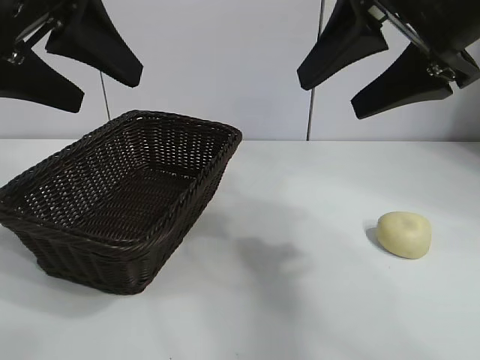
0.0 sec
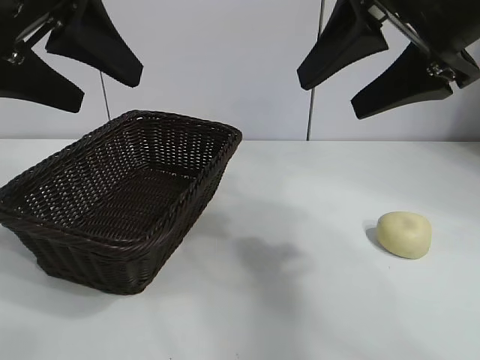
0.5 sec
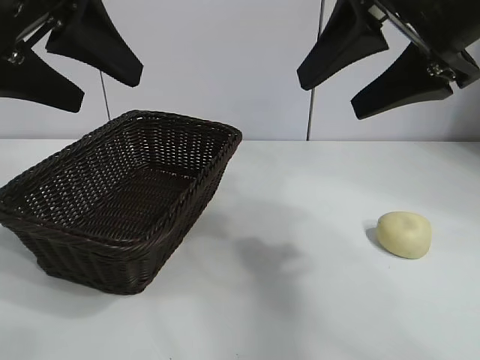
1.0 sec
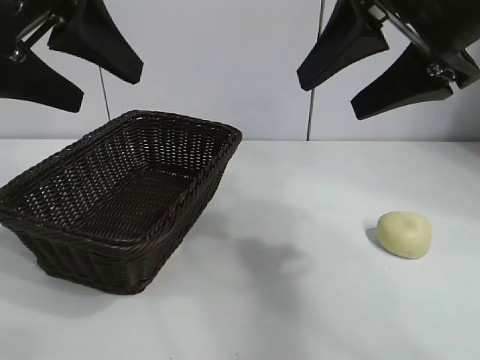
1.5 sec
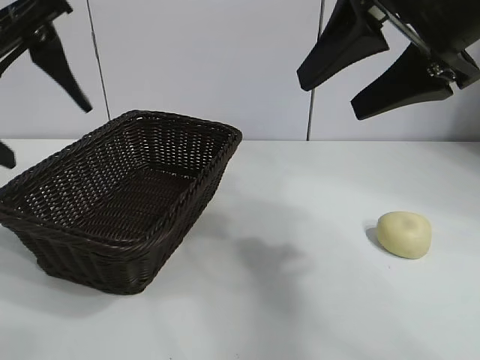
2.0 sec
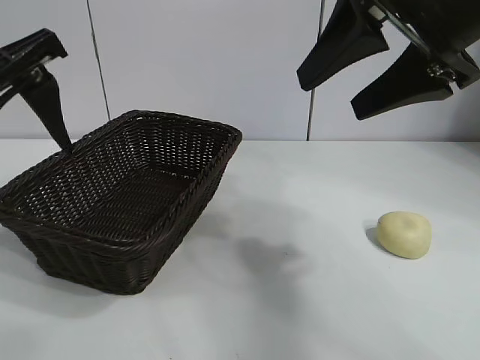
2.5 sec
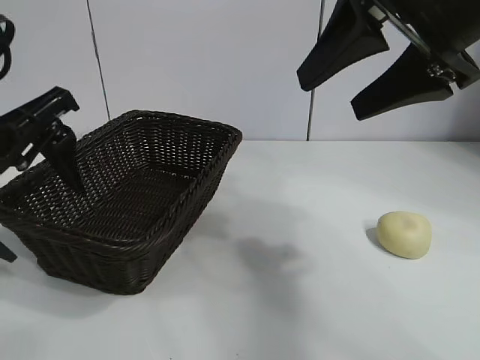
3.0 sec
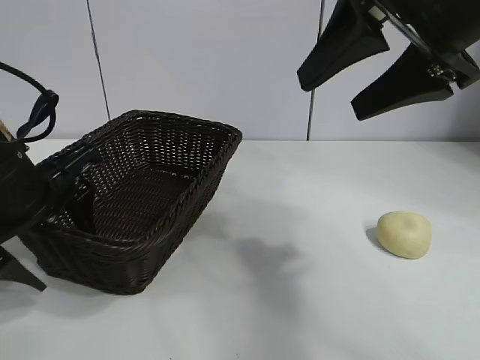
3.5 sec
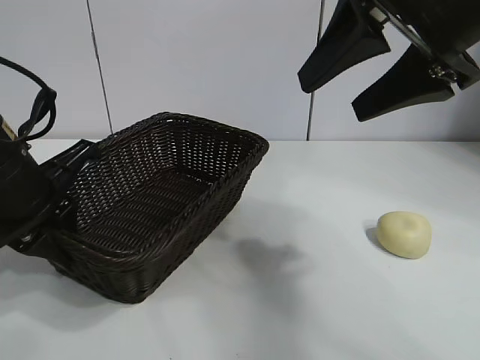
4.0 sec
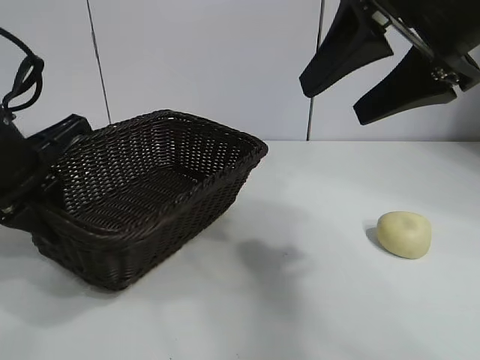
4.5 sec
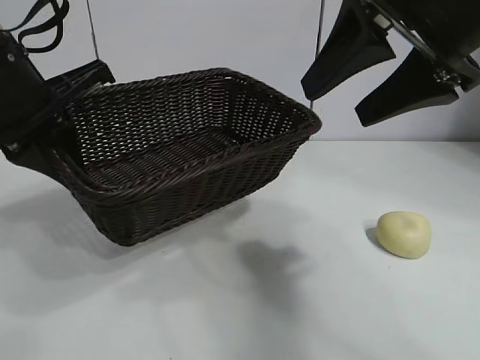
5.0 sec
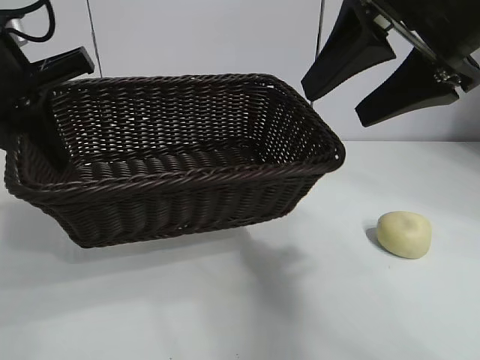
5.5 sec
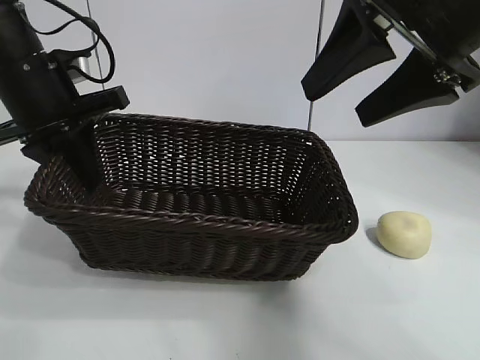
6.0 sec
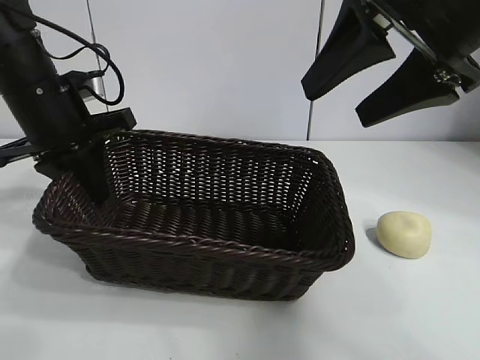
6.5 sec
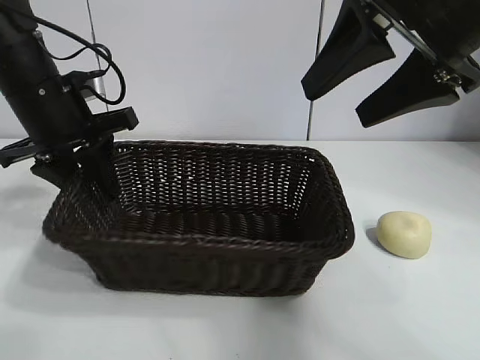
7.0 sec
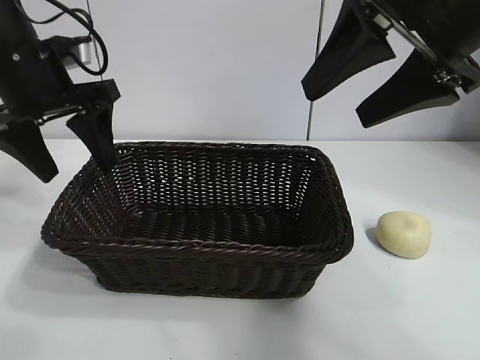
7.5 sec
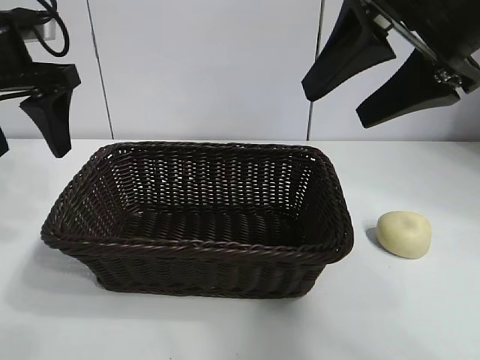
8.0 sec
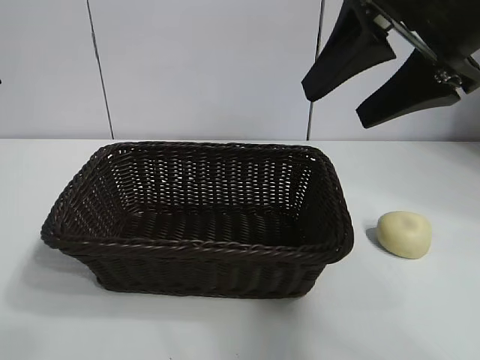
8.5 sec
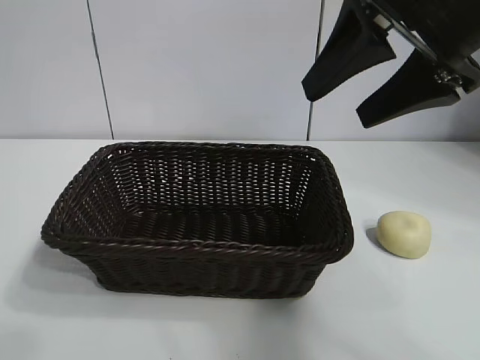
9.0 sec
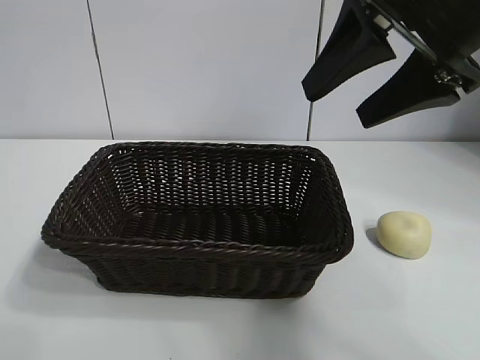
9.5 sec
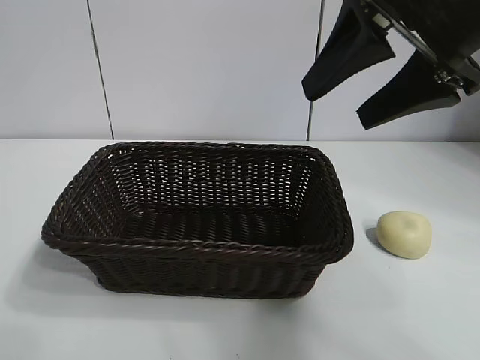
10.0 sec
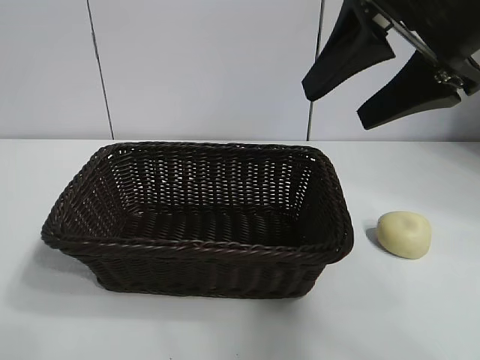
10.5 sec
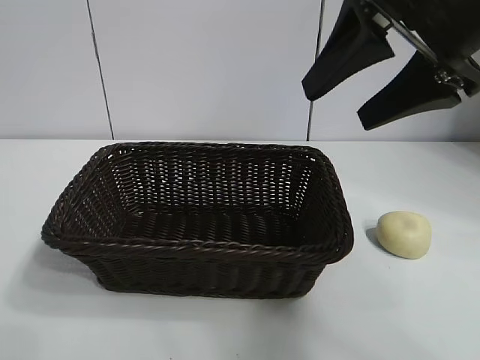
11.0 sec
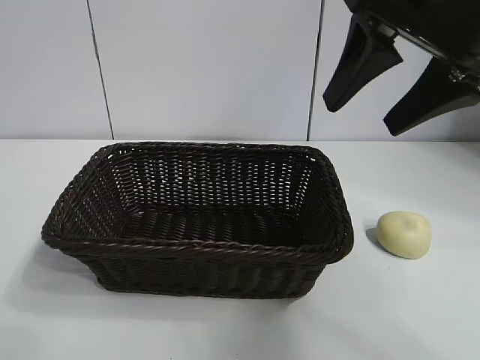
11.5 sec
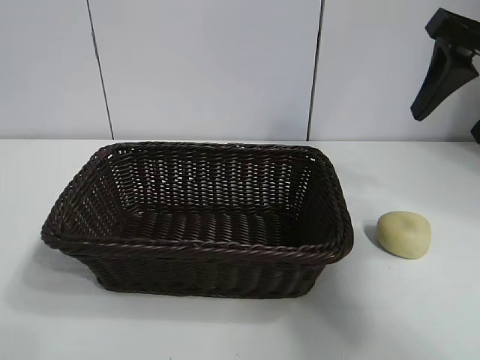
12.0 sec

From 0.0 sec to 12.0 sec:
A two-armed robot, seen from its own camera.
Task of the whole recording: pick up the egg yolk pastry and put it into the basket.
Step, from 2.0 sec to 3.5 sec: Grasp the basket with left gripper.
Step, from 4.0 sec to 7.0 sec: Place the basket in the center of view with left gripper.

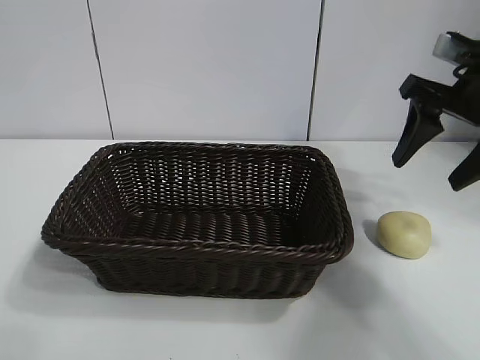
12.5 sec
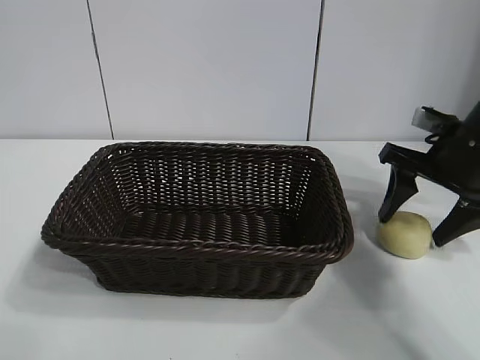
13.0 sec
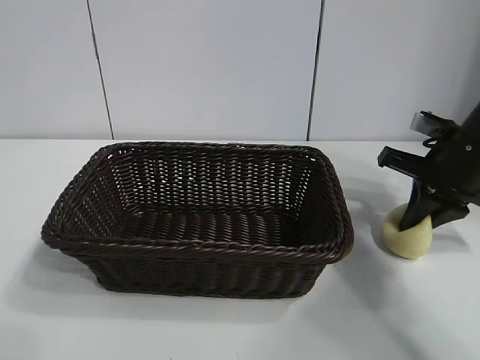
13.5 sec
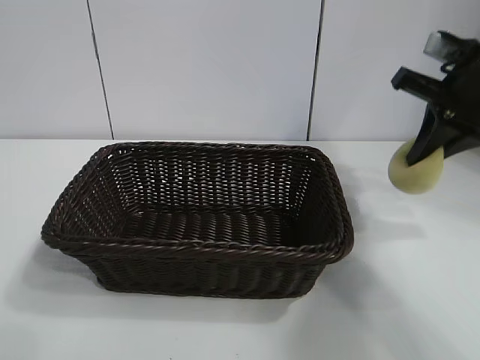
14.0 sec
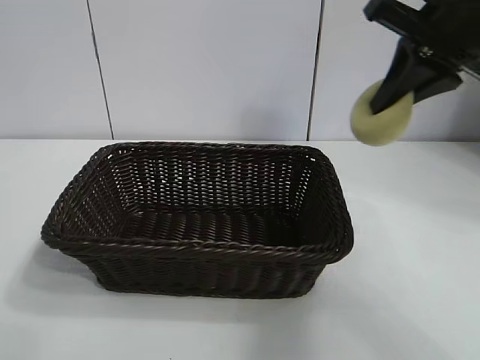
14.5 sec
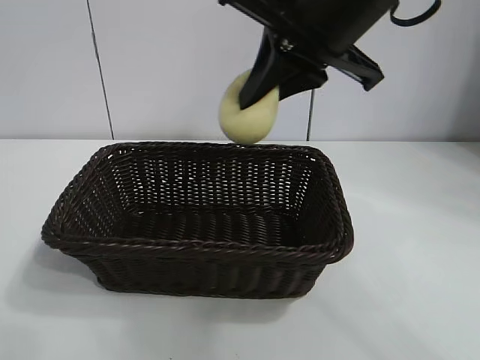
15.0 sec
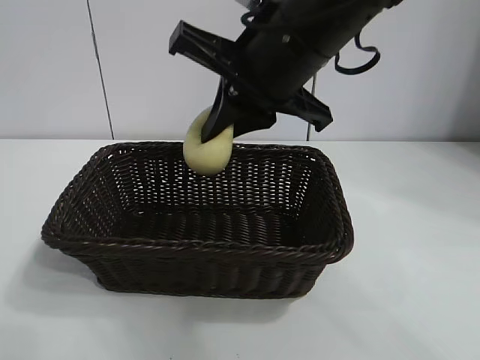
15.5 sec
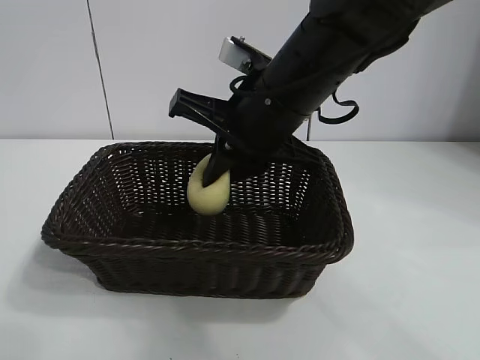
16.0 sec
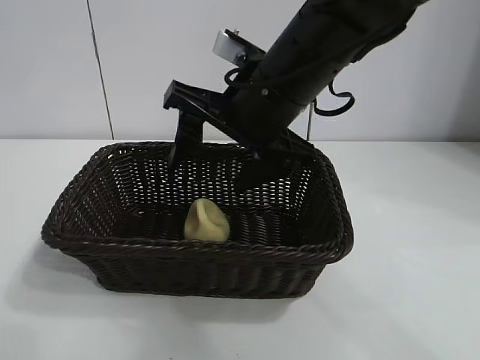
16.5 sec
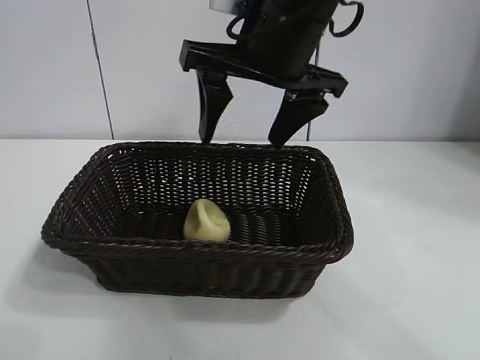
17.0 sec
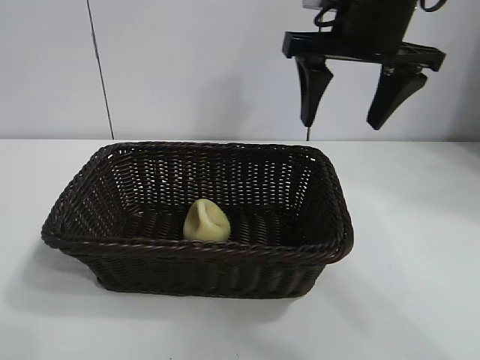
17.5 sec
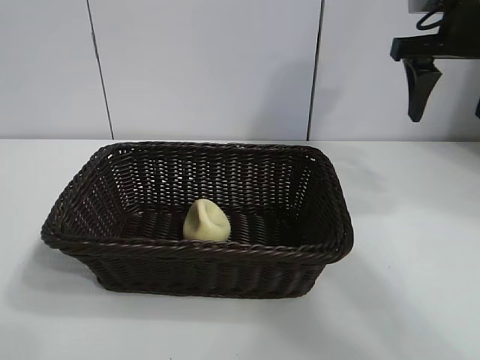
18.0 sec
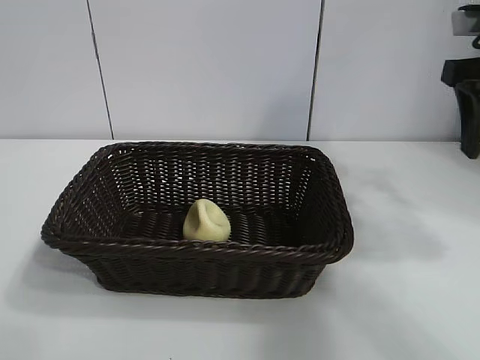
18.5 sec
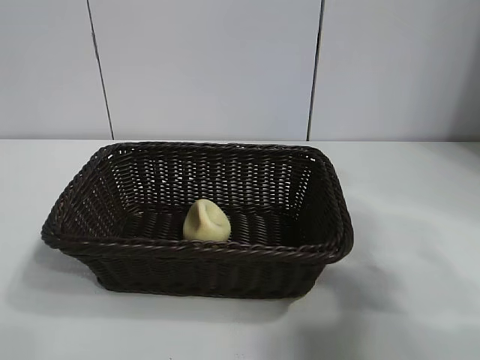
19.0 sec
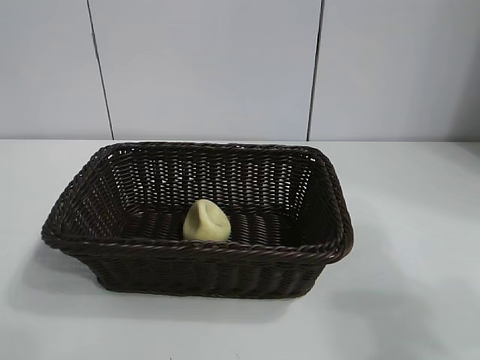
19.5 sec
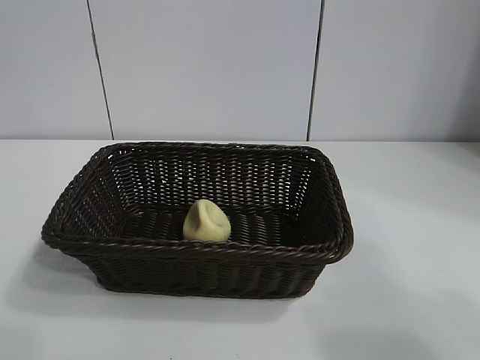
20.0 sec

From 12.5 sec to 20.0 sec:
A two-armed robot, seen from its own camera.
Task of the whole recording: pick up the egg yolk pastry and put it into the basket.
Step, from 14.0 sec to 16.0 sec: Place the egg yolk pastry in the basket with right gripper.

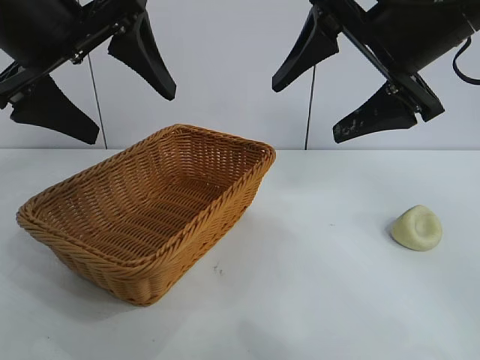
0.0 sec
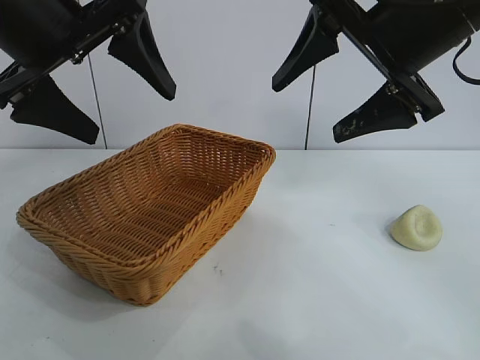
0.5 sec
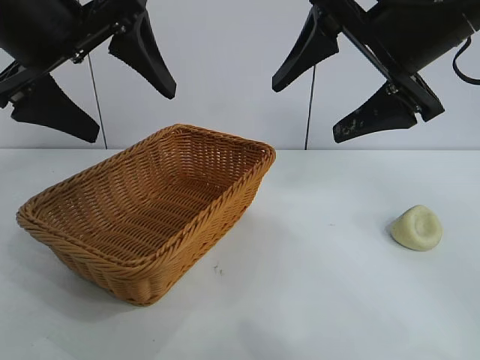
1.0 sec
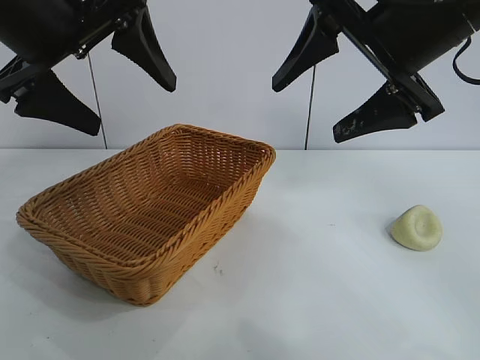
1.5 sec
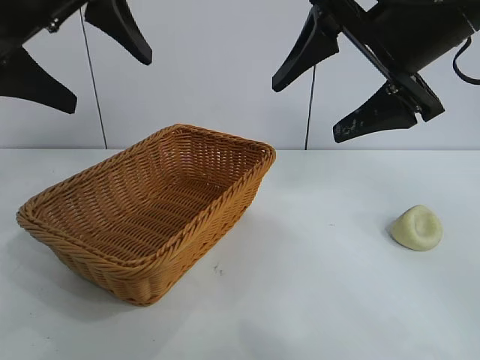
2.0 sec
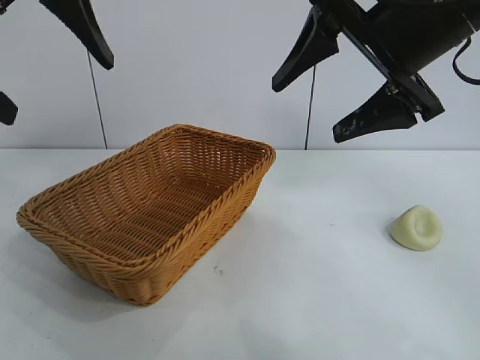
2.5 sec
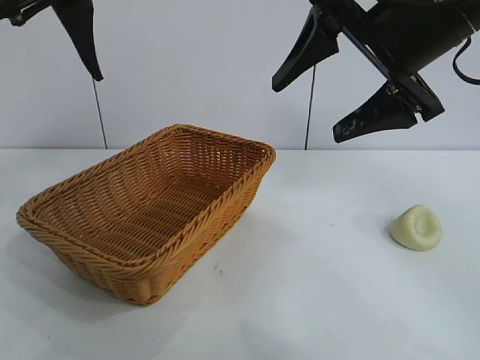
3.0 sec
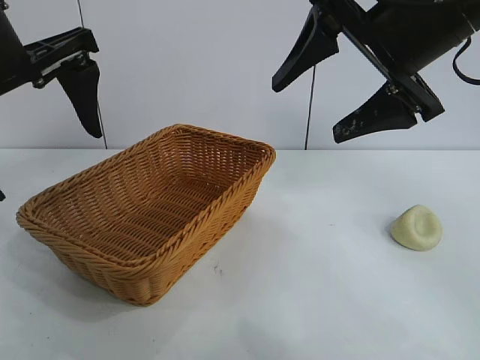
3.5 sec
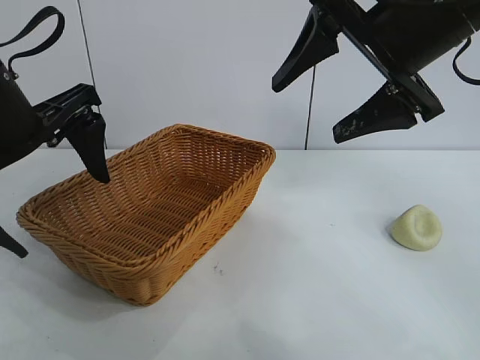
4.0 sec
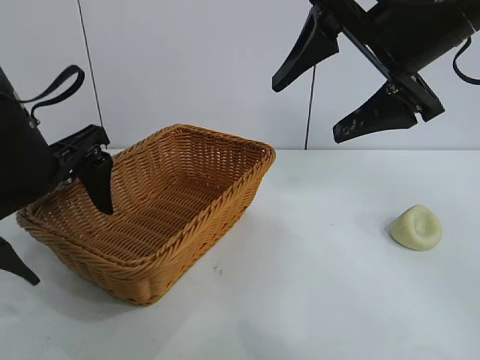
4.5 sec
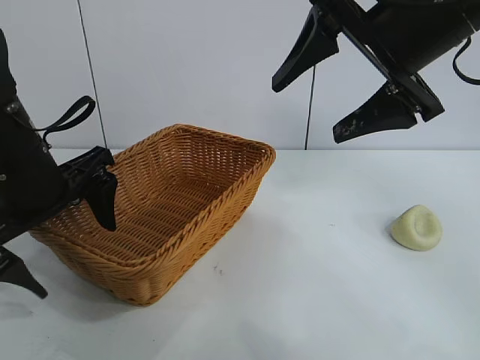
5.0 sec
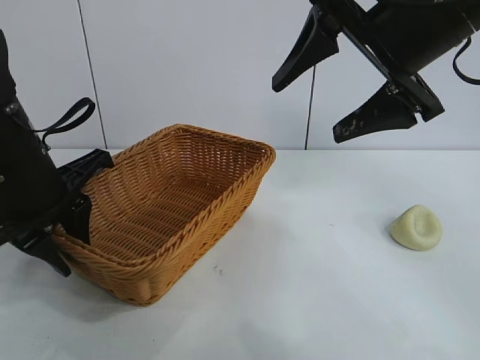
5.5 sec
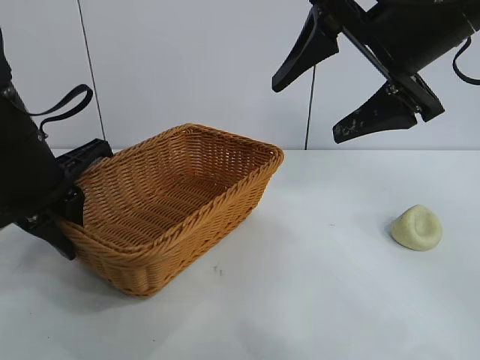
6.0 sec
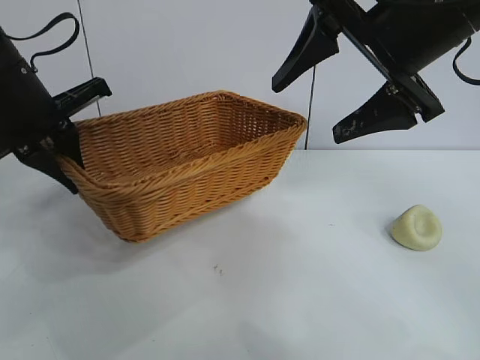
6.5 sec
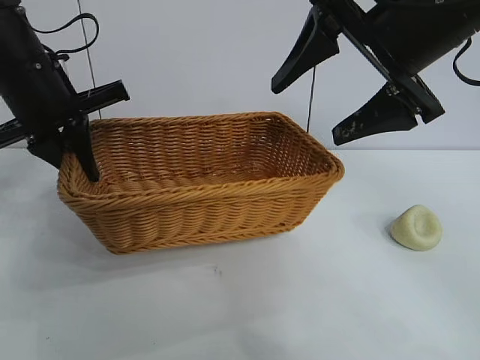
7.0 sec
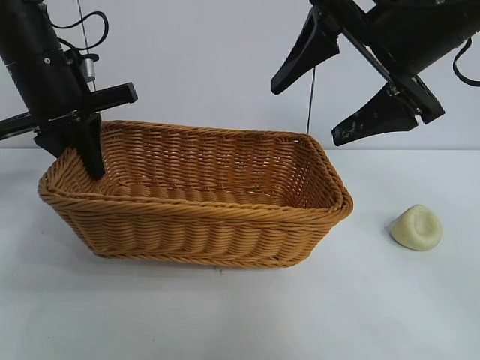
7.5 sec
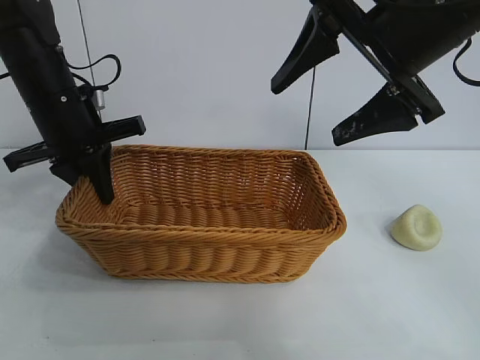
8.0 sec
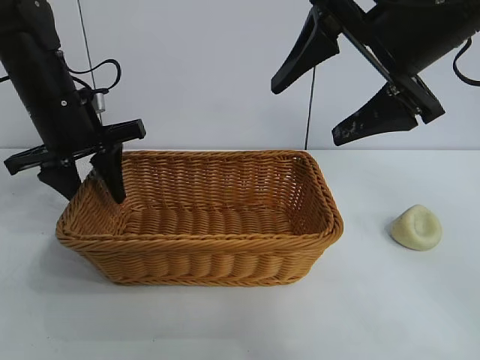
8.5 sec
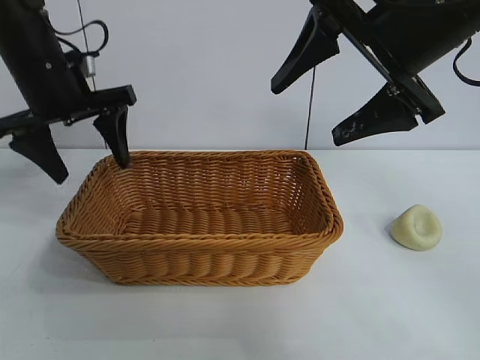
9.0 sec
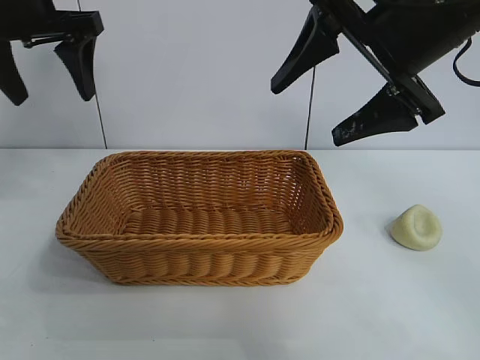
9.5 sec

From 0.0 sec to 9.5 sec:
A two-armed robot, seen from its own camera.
Task of the whole recording: pick up the egg yolk pastry and put it into the basket.
Step, from 1.0 sec to 5.5 sec: Grasp the basket with left gripper.
Step, from 6.0 sec to 8.5 sec: Place the basket in the center of view with left gripper.
